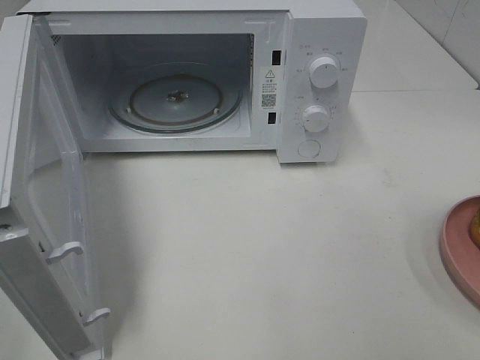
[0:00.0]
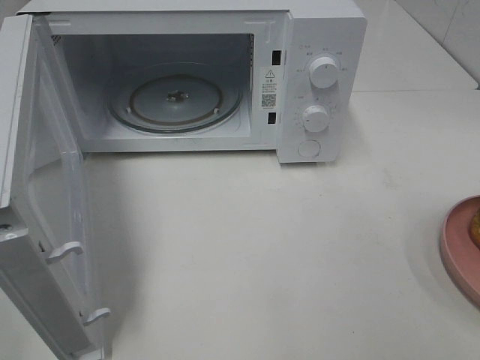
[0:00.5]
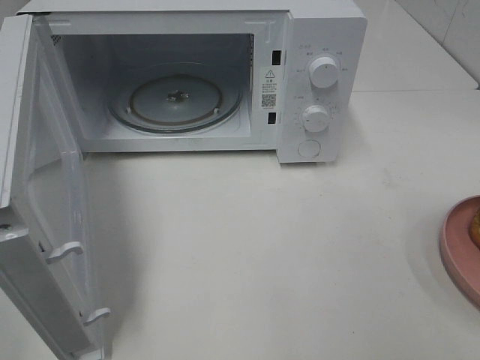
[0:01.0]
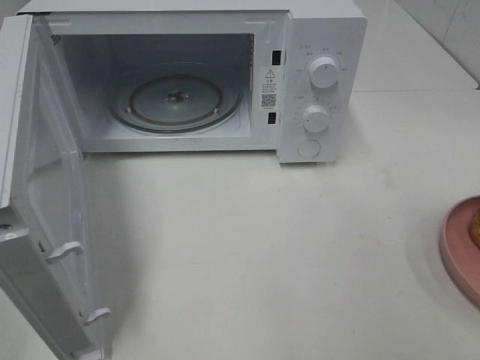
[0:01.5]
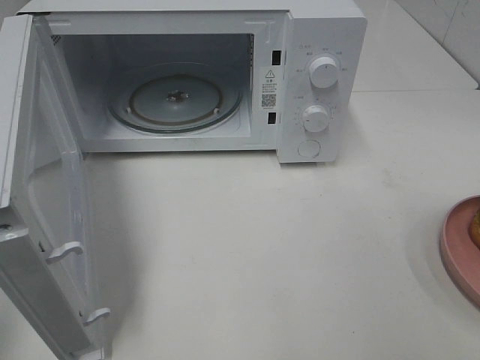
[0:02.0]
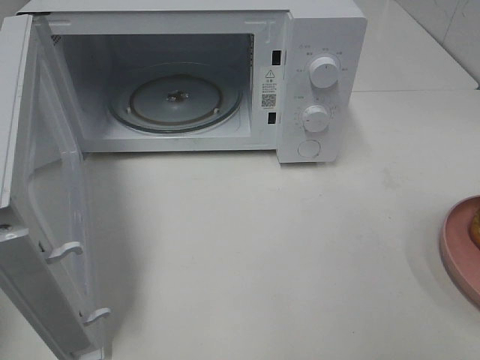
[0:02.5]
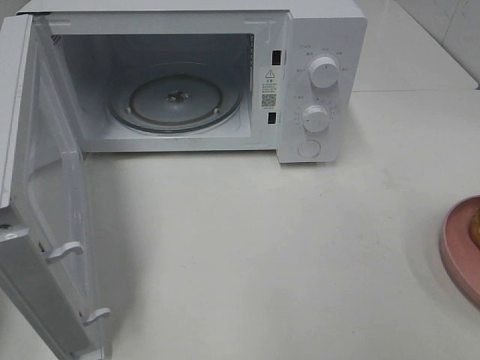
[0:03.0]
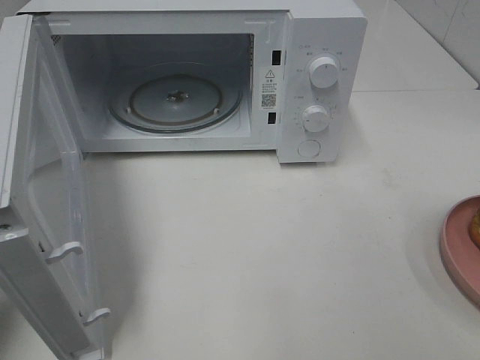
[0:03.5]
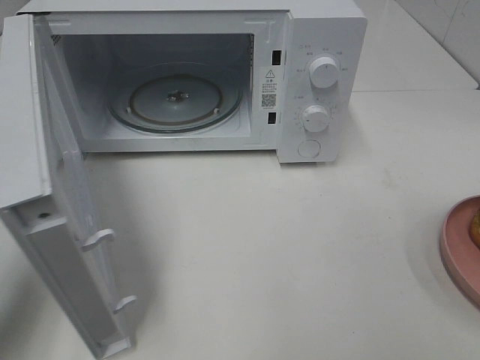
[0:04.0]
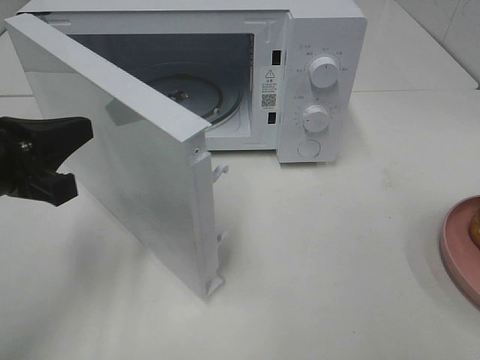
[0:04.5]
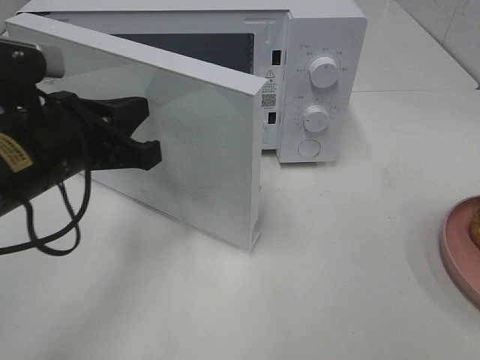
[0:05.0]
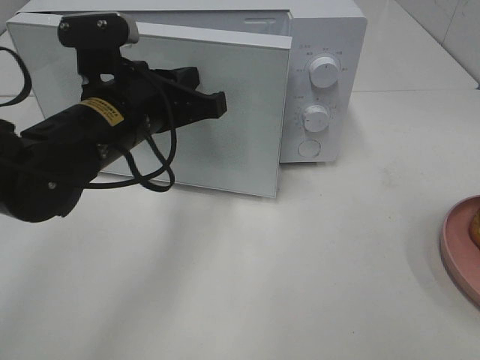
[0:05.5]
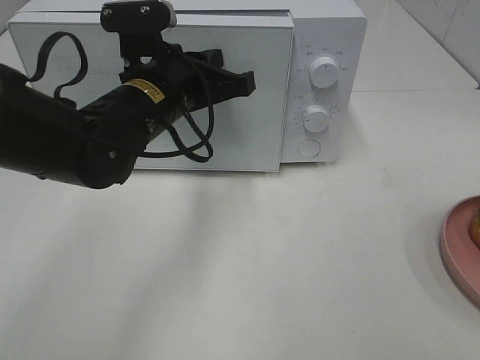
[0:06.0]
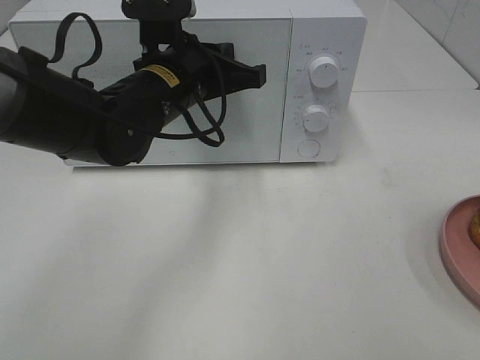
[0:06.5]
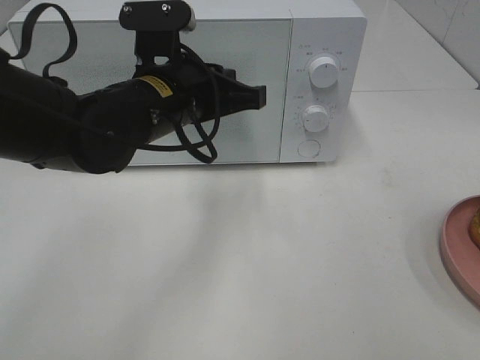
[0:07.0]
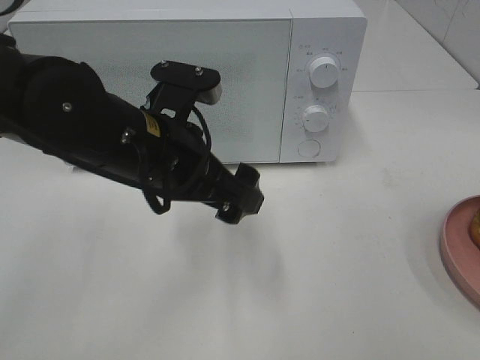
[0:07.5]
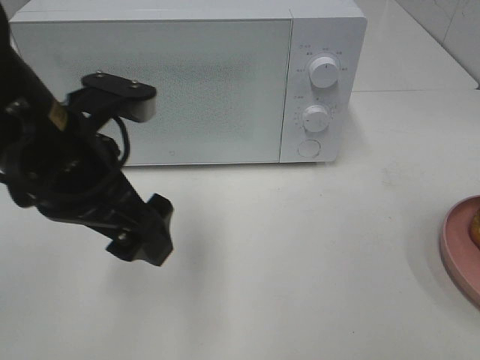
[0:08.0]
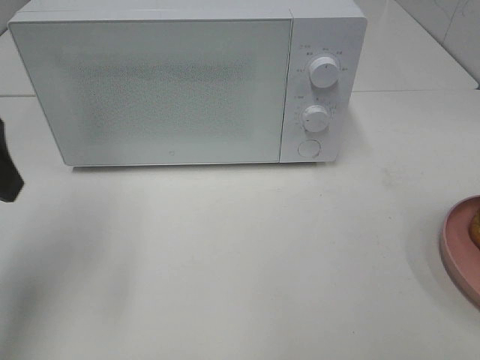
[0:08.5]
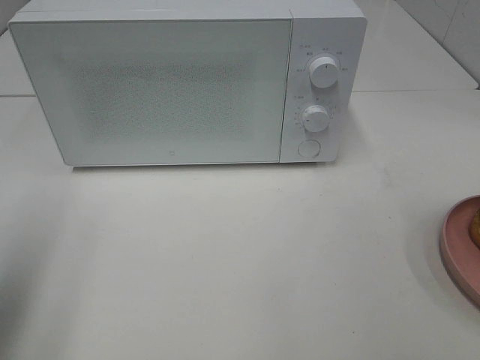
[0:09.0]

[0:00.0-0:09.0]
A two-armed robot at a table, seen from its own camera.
Task of the whole recording: Heat the burger.
Step, 0:00.0 to 0:06.5: Left hand: close the microwave door.
0:02.0 to 0:04.5: The left gripper travels forward, to the right and downward by about 25 cm, and closes.
0:04.5 to 0:07.0: The left gripper goes roughly 20 cm to the right and forward.
0:07.0 to 0:09.0: The left gripper travels to the left and backward by some 30 cm, and opens its fingers.

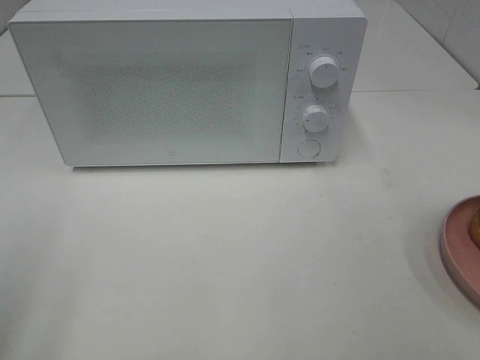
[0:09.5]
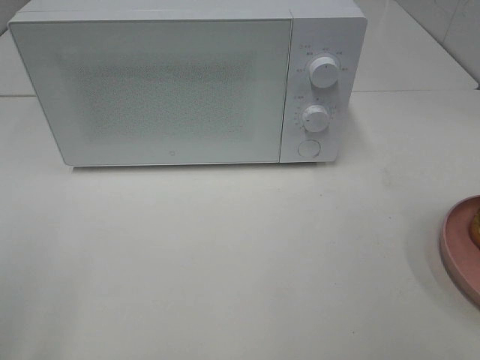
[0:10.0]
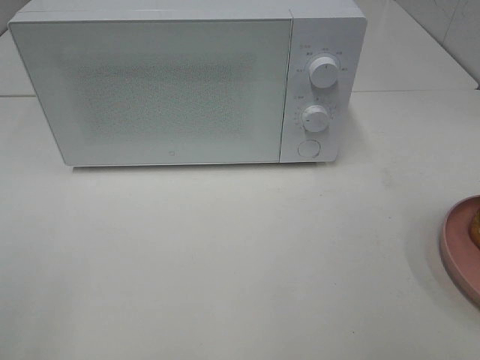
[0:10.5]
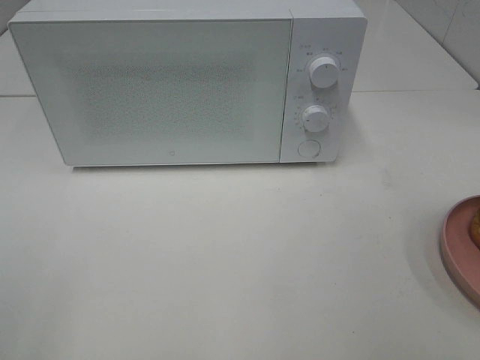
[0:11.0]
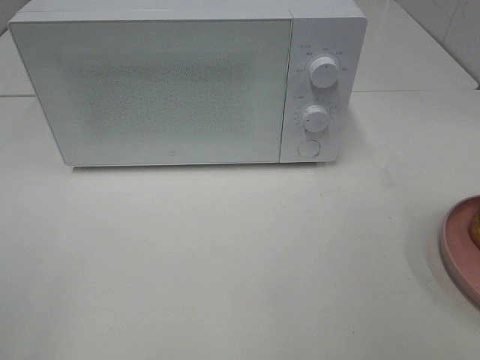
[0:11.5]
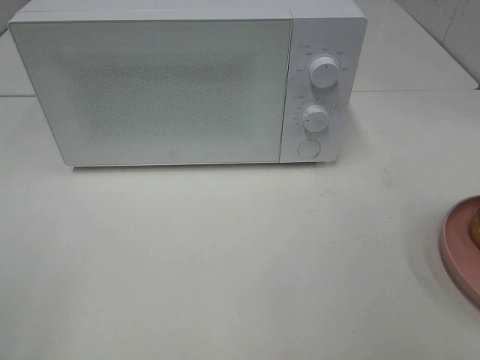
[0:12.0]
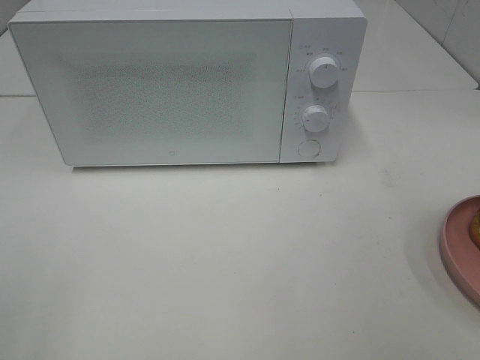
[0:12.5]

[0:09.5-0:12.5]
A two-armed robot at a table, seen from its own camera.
Task of the whole recording: Heat the burger.
0:11.0 to 0:12.5: Neither gripper changes place.

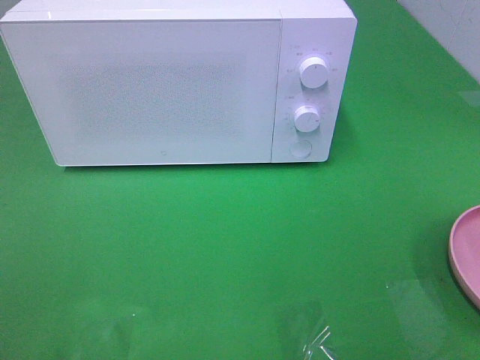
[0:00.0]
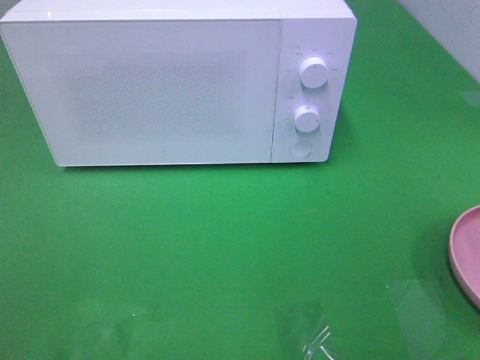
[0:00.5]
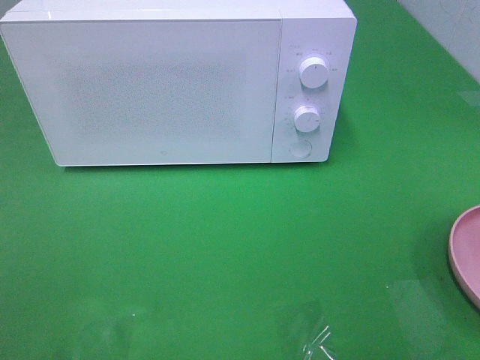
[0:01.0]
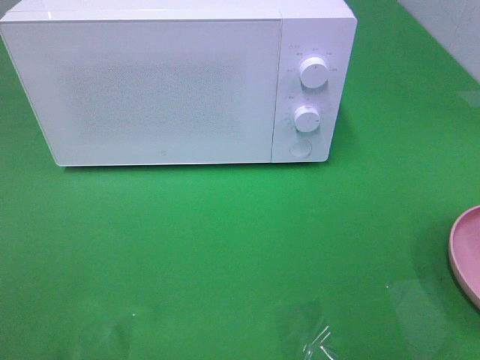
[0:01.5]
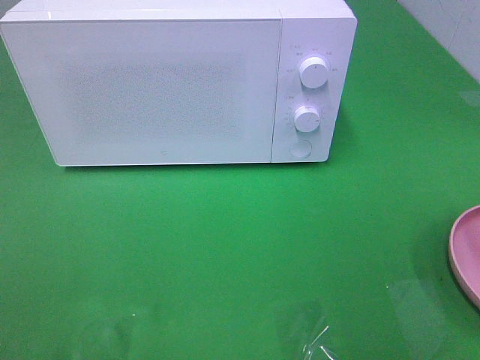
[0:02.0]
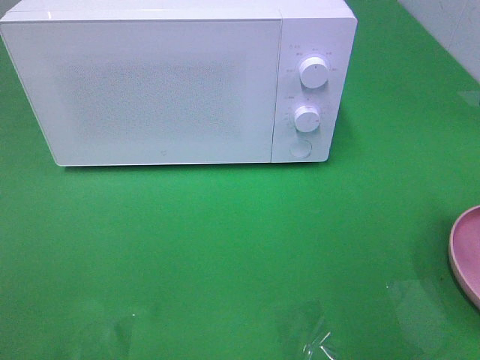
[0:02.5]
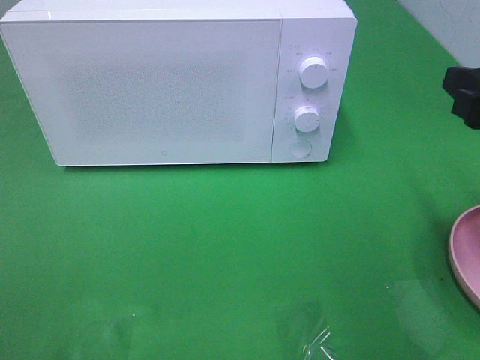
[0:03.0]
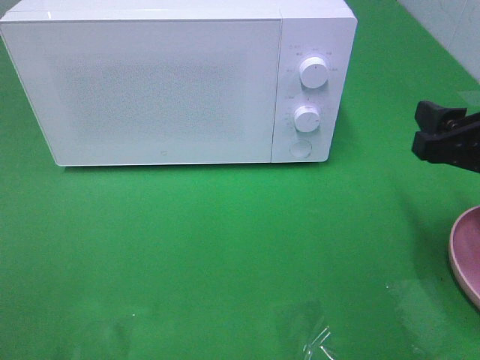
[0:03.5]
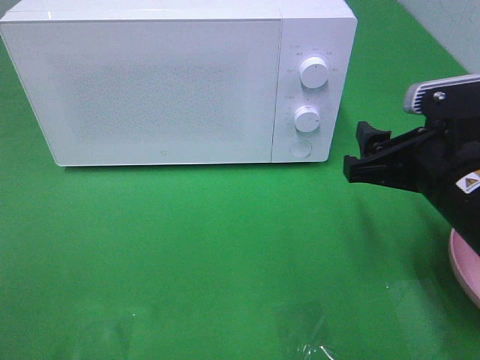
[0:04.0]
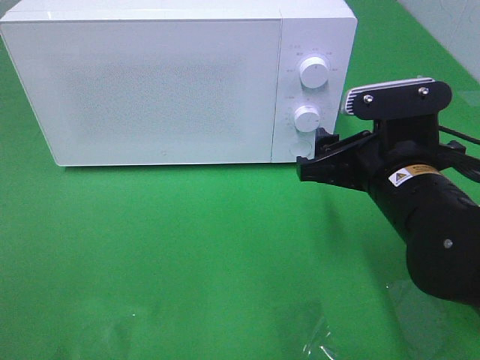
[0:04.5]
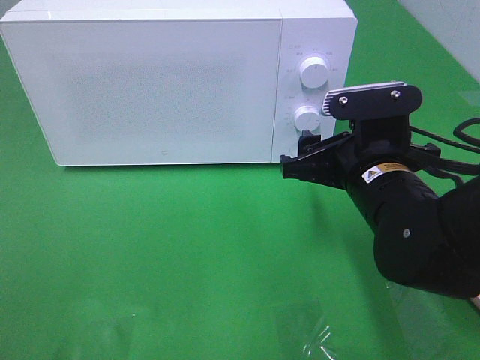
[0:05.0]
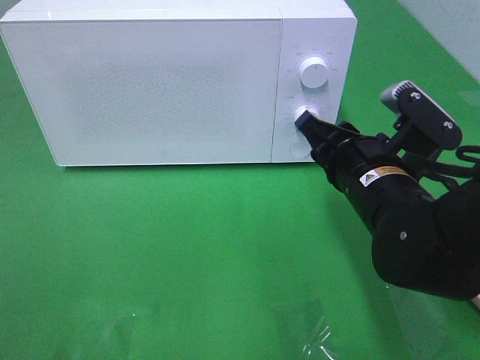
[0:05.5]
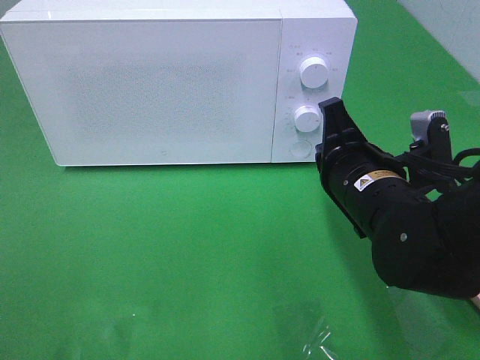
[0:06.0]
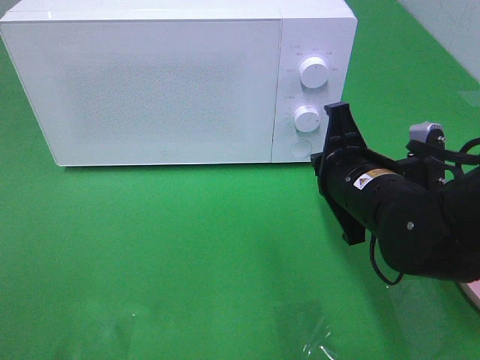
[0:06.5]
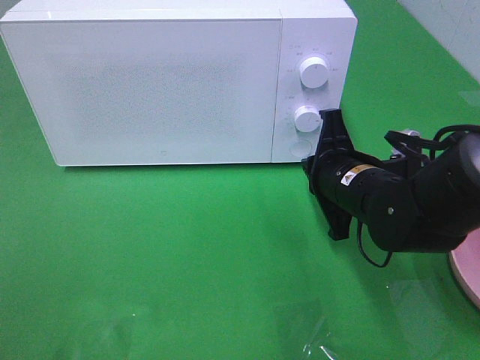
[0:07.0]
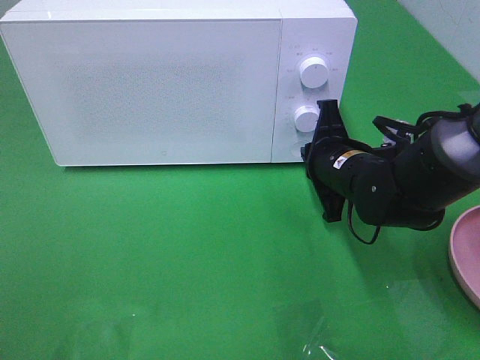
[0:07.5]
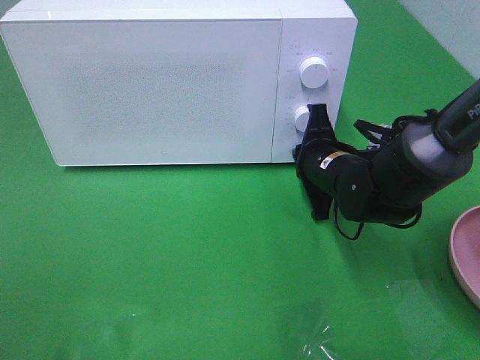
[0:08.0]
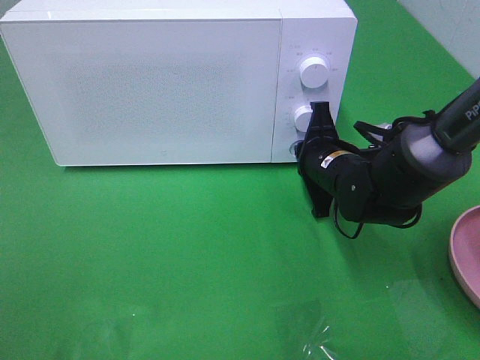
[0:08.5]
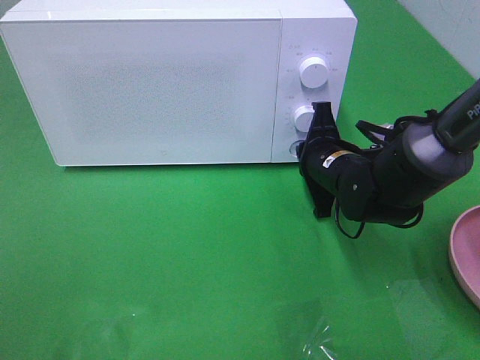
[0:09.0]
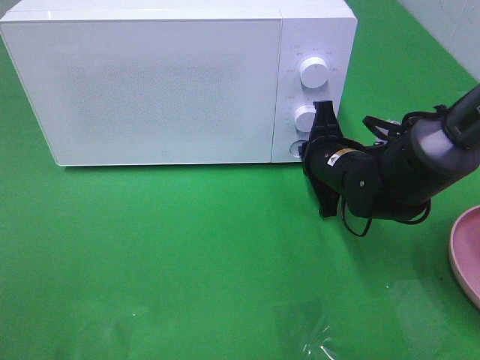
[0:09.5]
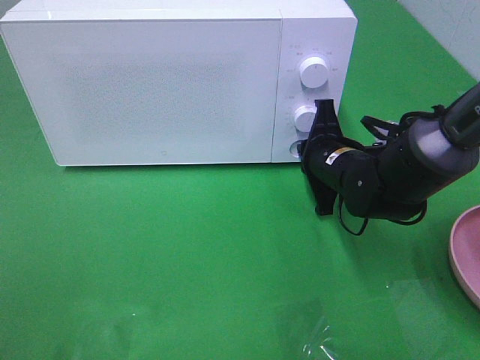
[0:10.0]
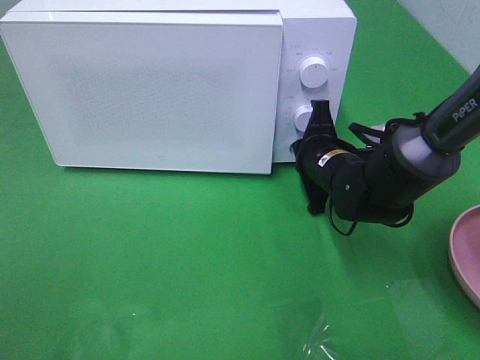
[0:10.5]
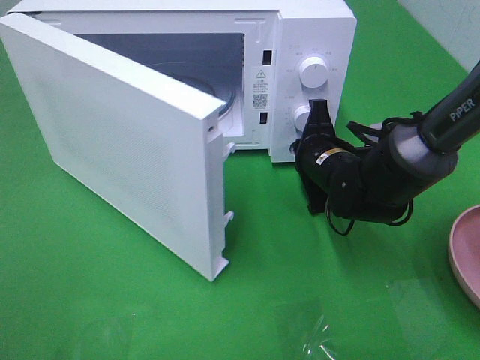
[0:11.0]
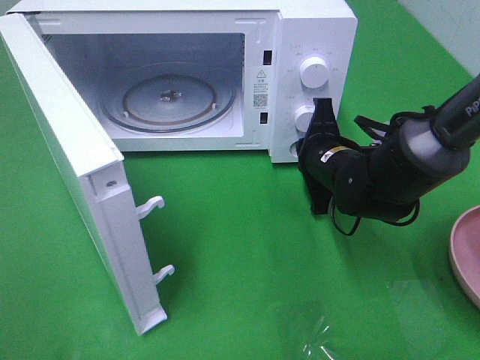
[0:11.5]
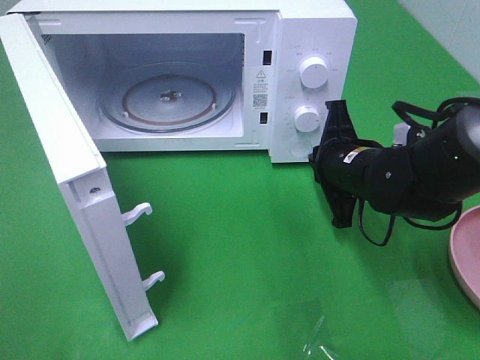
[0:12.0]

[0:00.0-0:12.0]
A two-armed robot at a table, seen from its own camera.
Task of the whole recording: Heat the burger.
0:02.0 to 0:04.0: The right gripper travels downward, forward and to the left by some 20 cm.
0:04.0 to 0:06.0: The right gripper shifts approximately 5 cm to the left, and closes up.
0:06.0 to 0:08.0: The right gripper heads forward and downward, covering approximately 10 cm.
0:08.0 to 0:10.0: Neither gripper changes place.

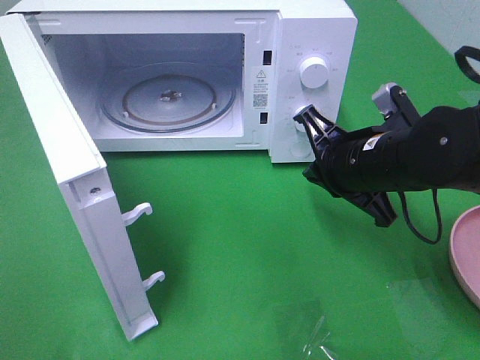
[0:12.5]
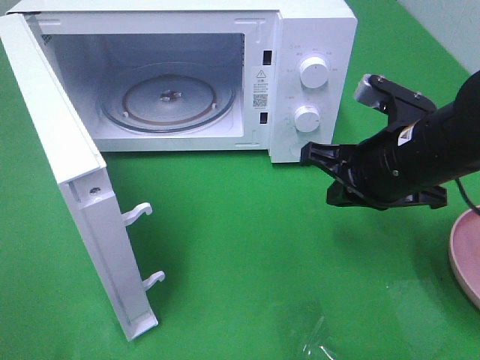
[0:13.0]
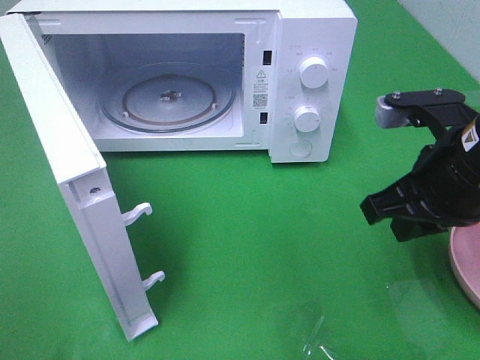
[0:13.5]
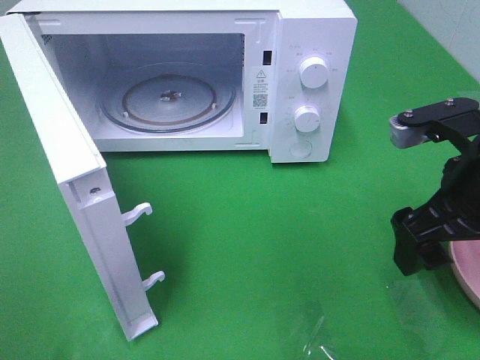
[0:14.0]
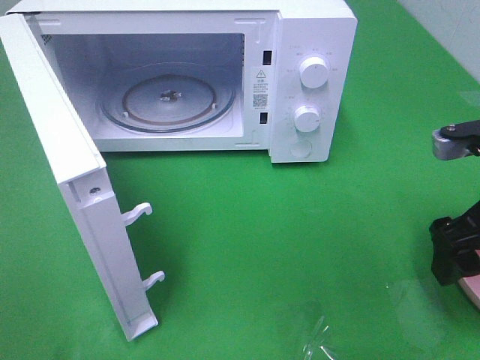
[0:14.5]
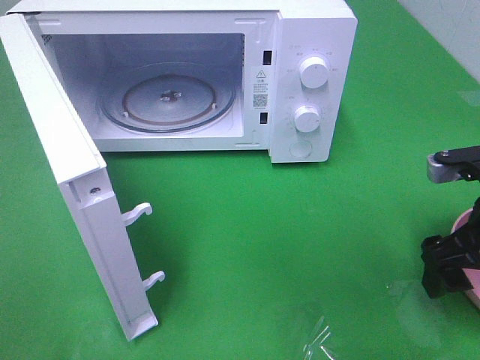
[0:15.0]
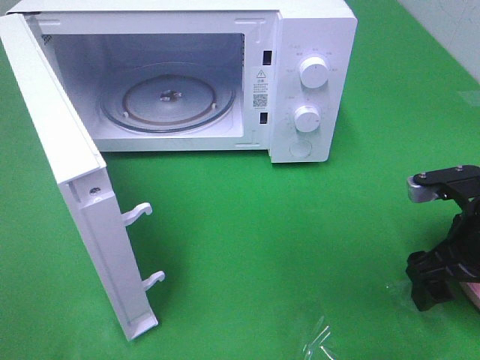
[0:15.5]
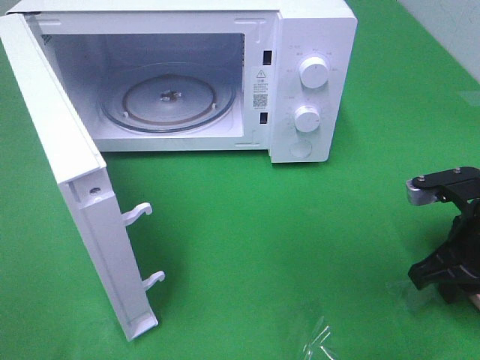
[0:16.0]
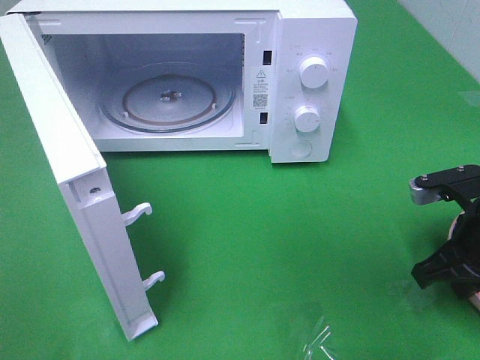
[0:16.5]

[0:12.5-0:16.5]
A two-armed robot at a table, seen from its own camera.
Task of the whole recording: Heat the burger.
0:12.5 to 0:14.5: The right gripper heads to the right and backward, covering about 15 cm, and opens.
0:14.5 to 0:16.5: The right gripper goes about 10 cm downward, and closes.
